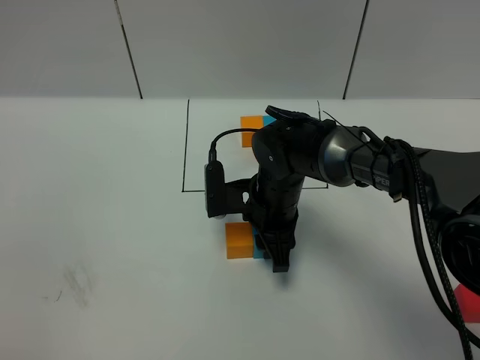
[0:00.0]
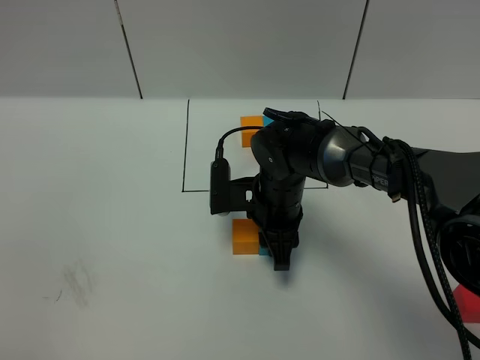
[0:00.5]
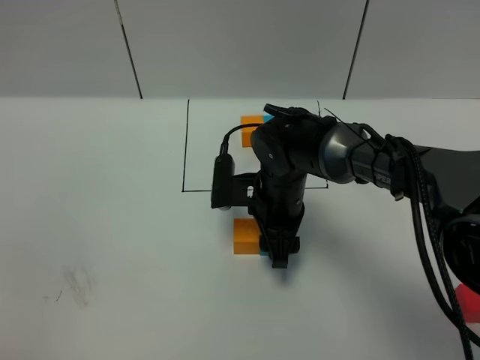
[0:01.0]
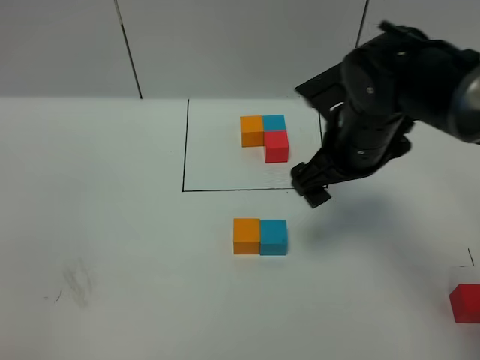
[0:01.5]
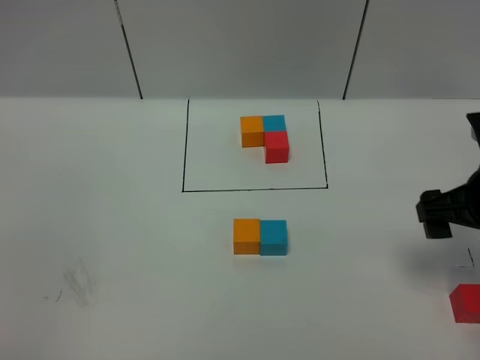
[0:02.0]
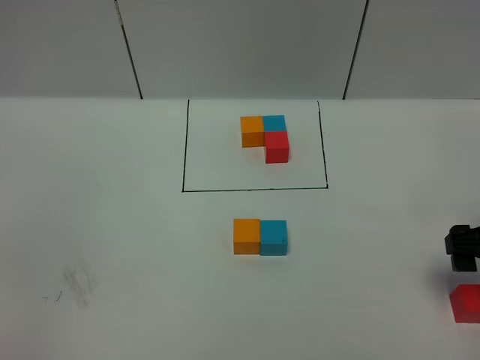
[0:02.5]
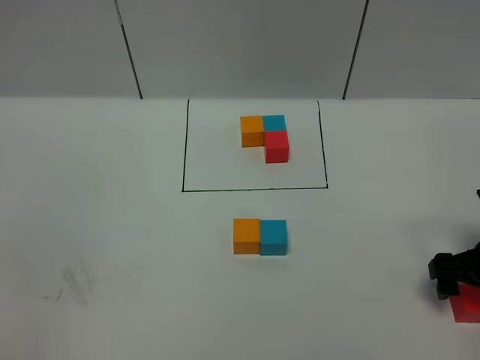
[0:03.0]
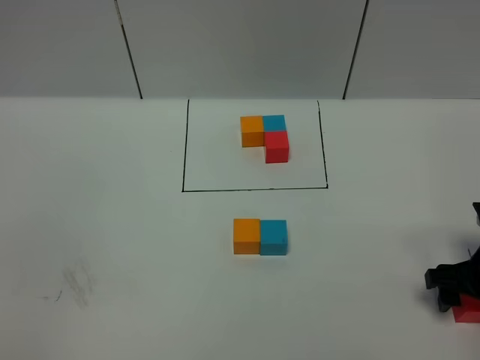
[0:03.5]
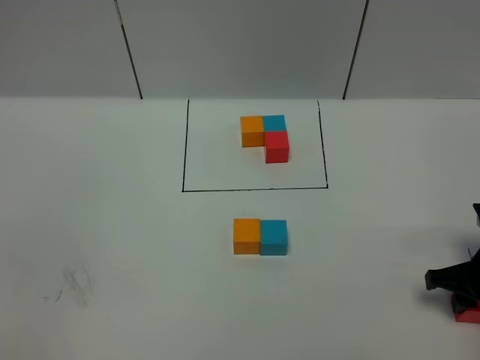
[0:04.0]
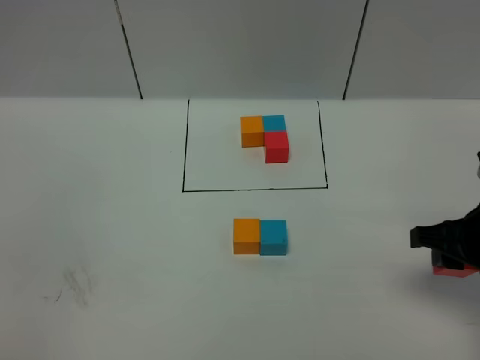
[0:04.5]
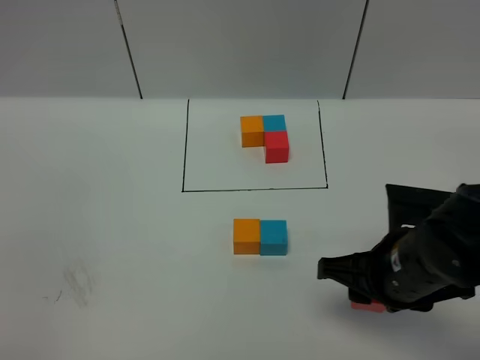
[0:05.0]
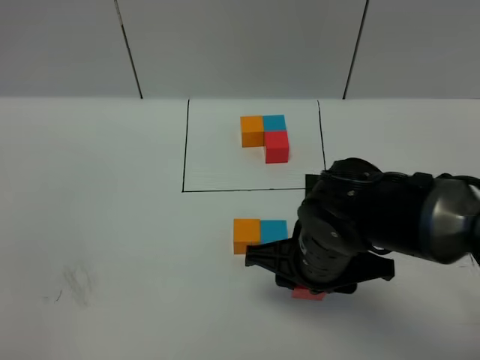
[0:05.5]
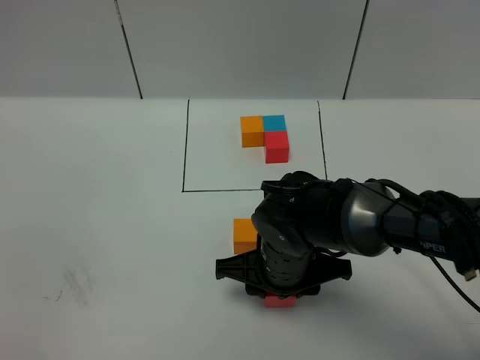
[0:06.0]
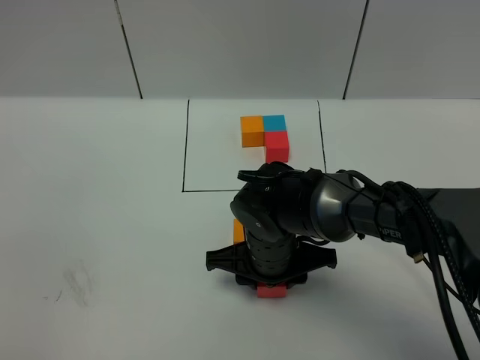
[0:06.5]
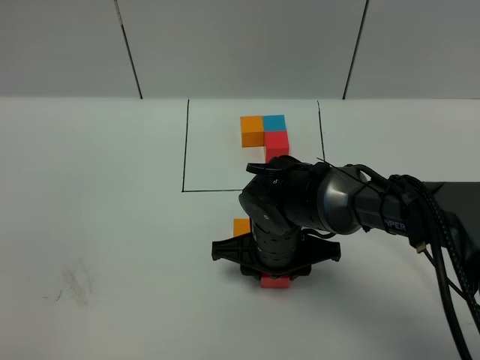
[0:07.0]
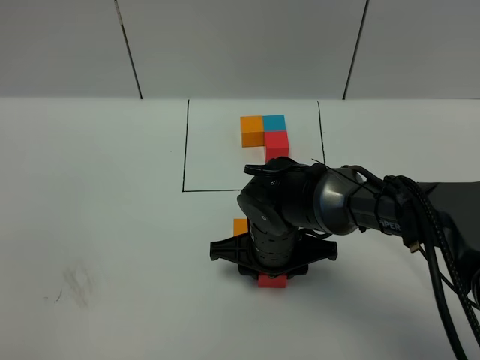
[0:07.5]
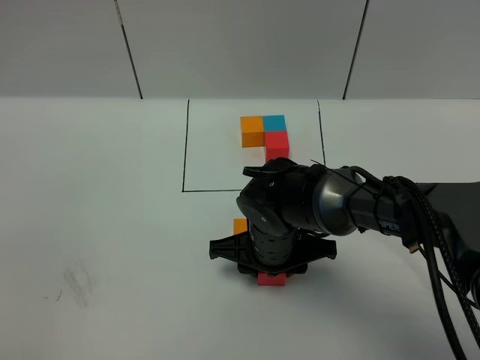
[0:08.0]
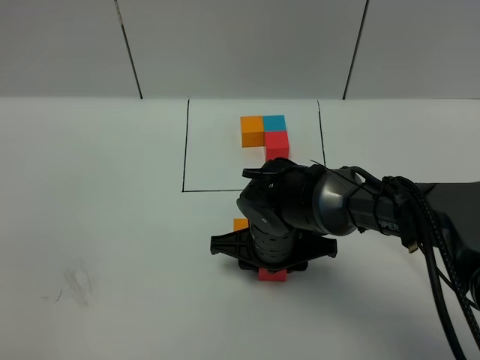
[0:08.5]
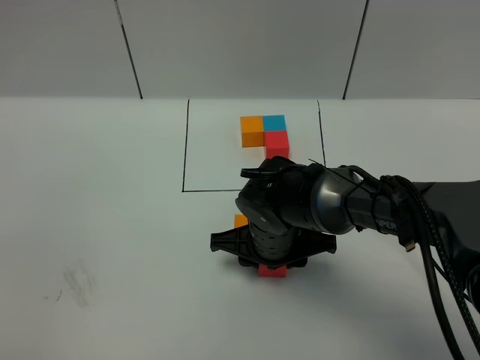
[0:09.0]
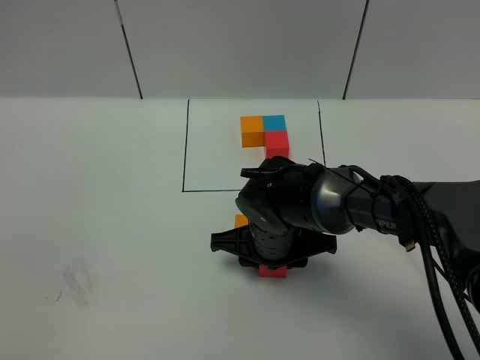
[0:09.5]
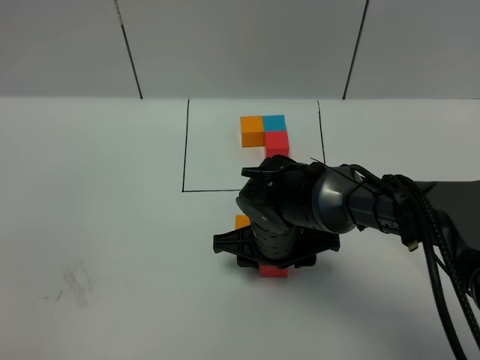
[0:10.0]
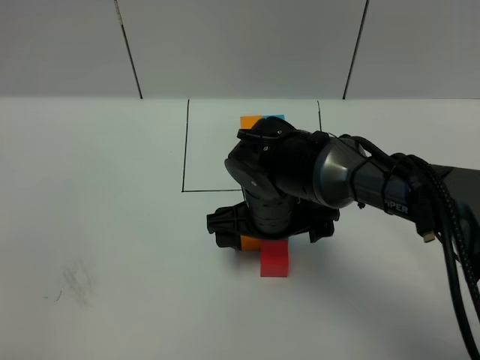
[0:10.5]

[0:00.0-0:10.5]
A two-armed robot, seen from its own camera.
Task of the whole recording: According to the building block template in front, assemble the scattered blocks together.
Step, 0:01.5 to 0:10.0: Put the red cube in the front of the blue cube.
0:00.0 to 0:02.0: The right gripper moves to the right and upward, approximately 25 cm, and opens.
0:02.0 to 0:04.0: The right gripper heads downward, covering about 10 cm, and closes up.
0:04.0 to 0:06.5: The right gripper travels to the left by about 30 cm.
0:06.5 to 0:08.5: The grippers make only small movements.
0:08.5 to 0:10.5: The right gripper is displaced upward by about 5 cm, and opens its fingers.

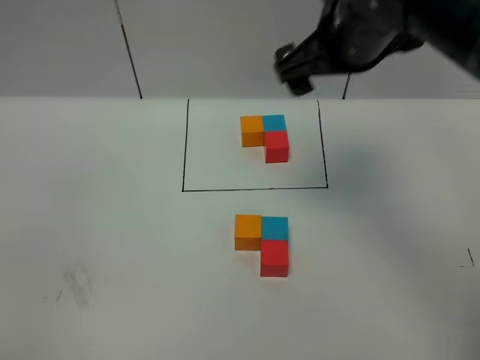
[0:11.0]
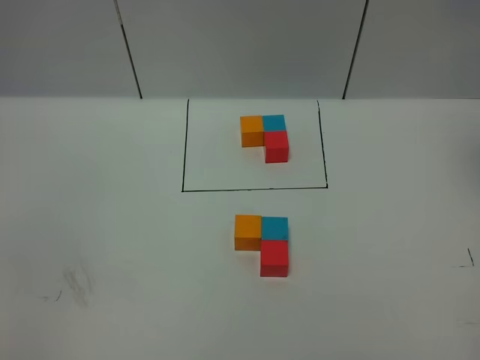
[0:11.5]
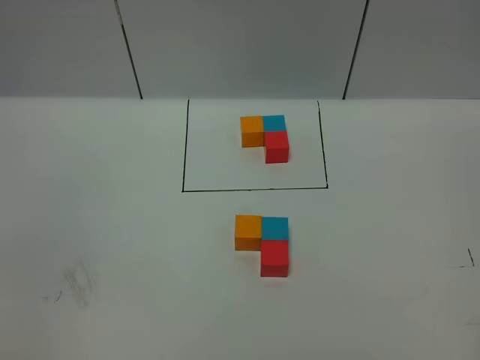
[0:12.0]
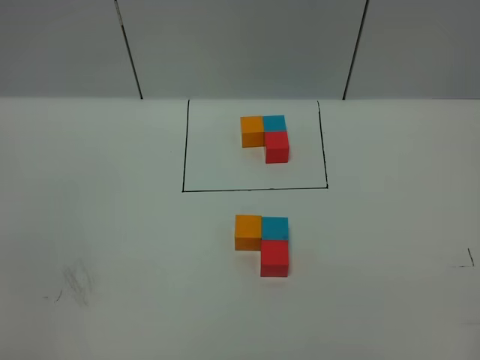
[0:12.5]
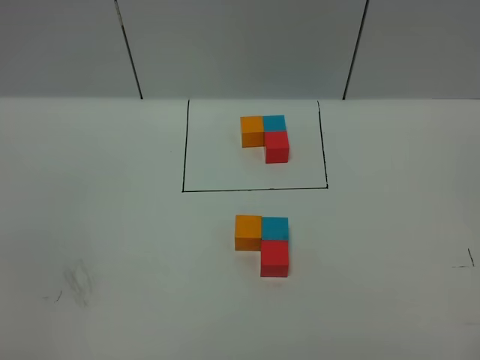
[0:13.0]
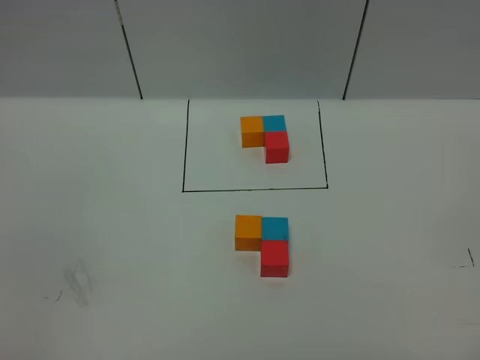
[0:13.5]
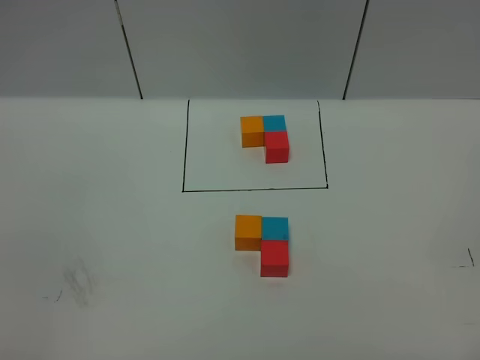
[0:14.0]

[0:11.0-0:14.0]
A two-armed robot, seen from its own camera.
Task of the whole recording: According to the building block template in front, assemble the scattered blocks together.
0:11.0 to 0:12.5: The right gripper travels backward and to the right by about 40 cm.
